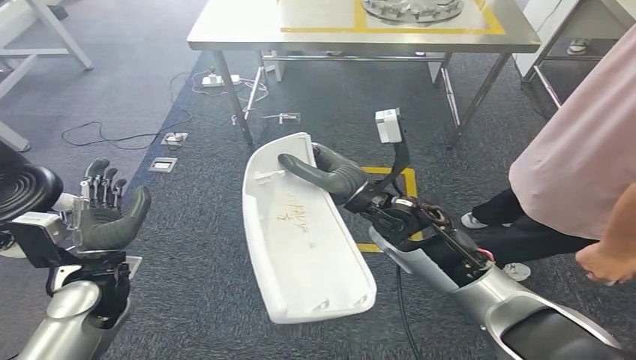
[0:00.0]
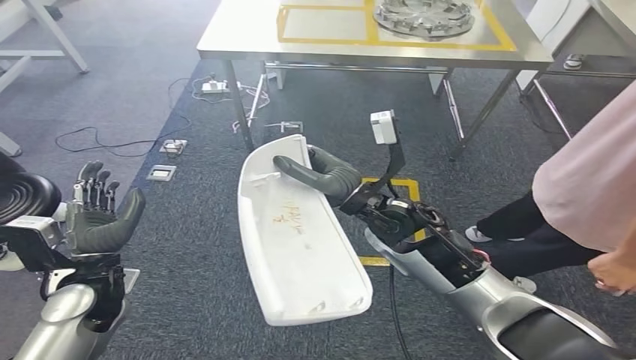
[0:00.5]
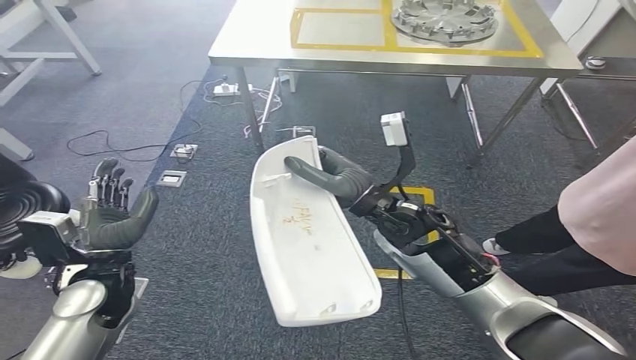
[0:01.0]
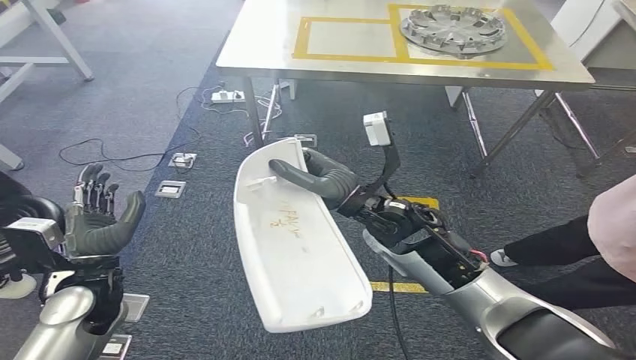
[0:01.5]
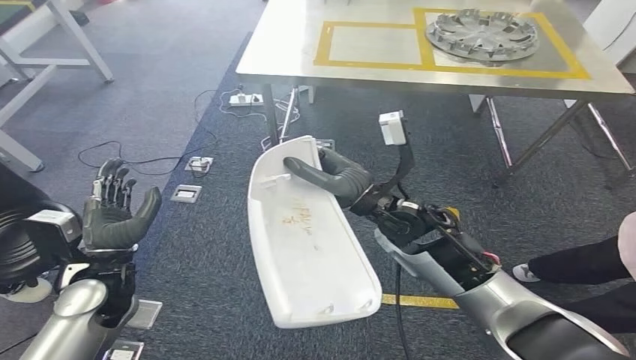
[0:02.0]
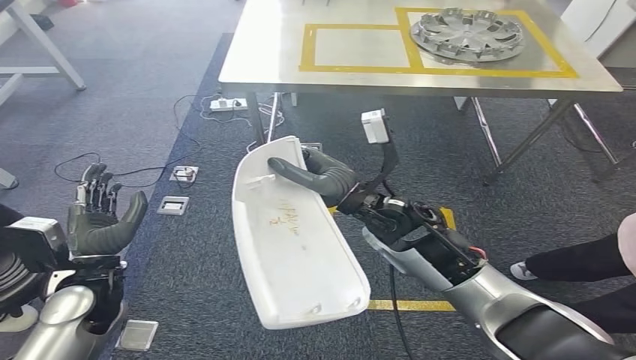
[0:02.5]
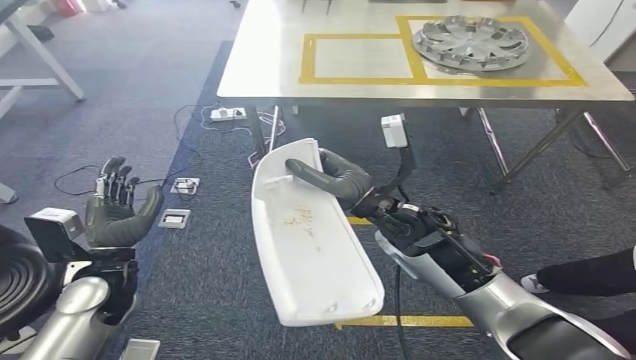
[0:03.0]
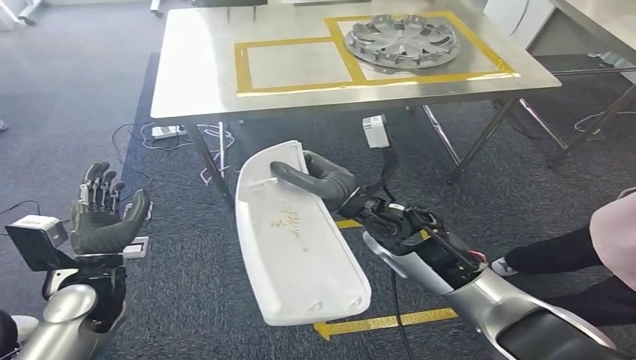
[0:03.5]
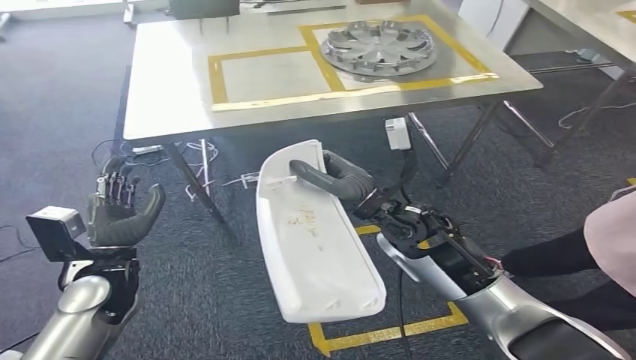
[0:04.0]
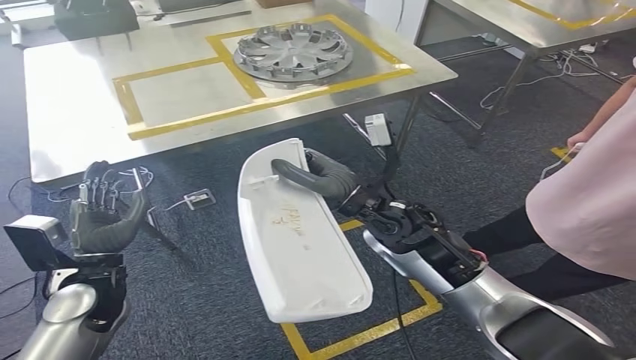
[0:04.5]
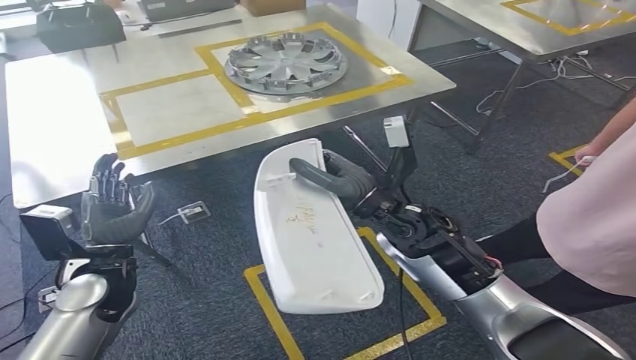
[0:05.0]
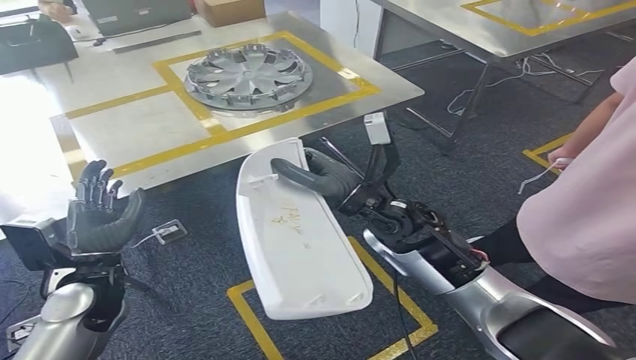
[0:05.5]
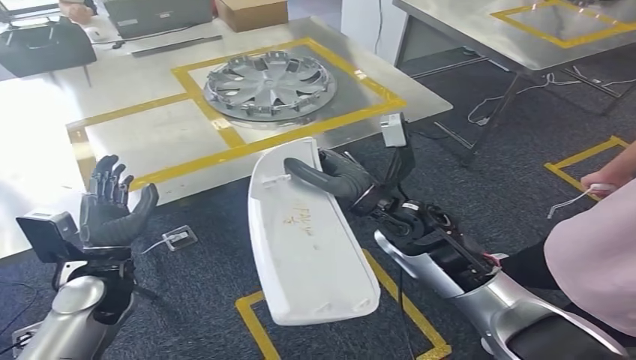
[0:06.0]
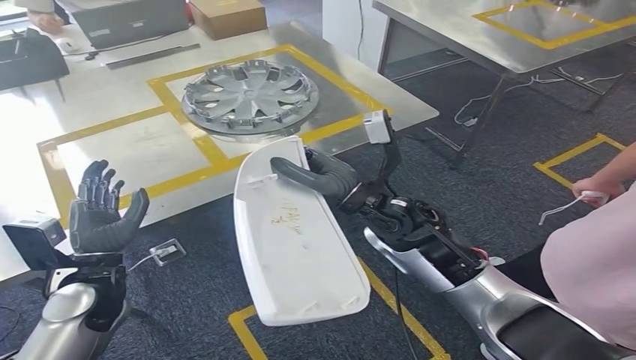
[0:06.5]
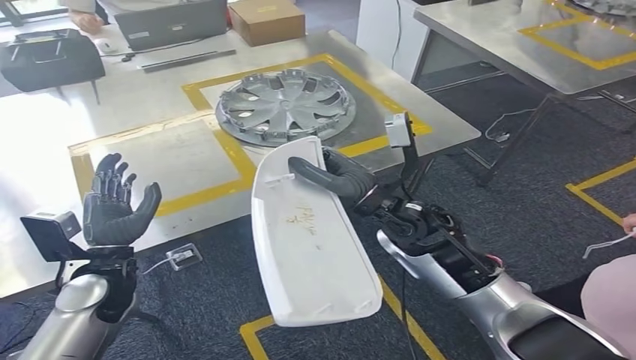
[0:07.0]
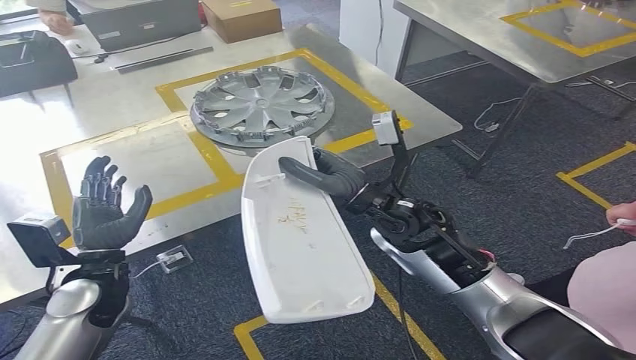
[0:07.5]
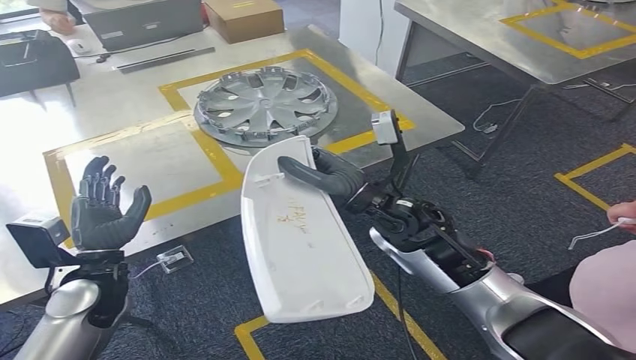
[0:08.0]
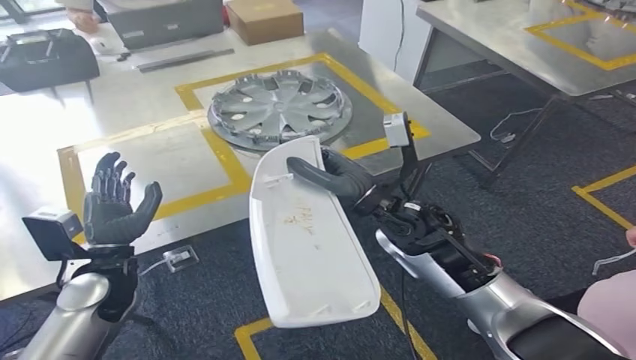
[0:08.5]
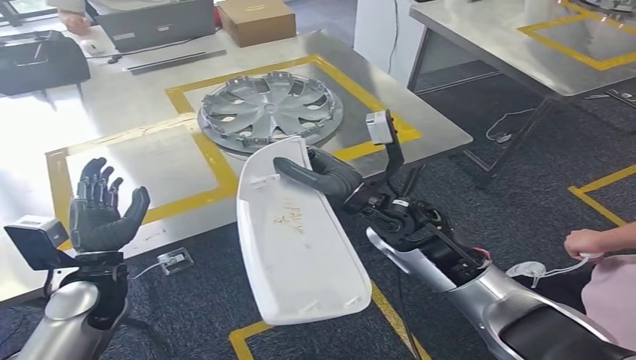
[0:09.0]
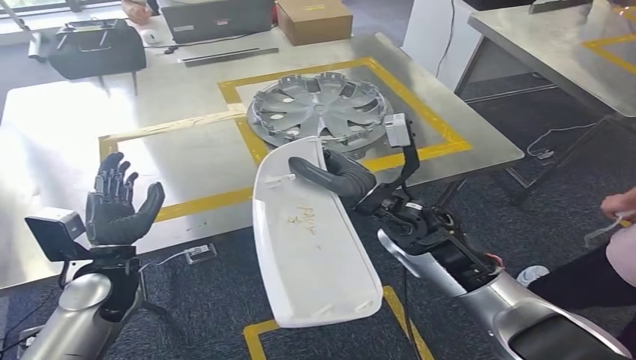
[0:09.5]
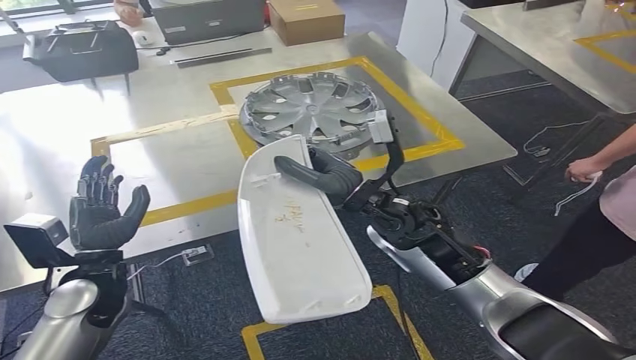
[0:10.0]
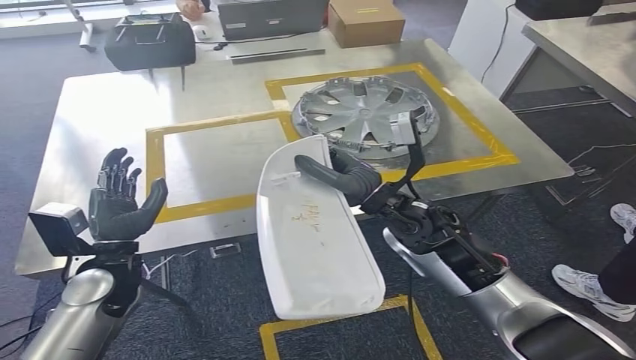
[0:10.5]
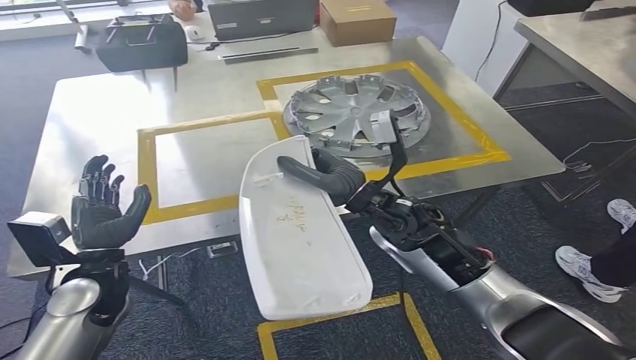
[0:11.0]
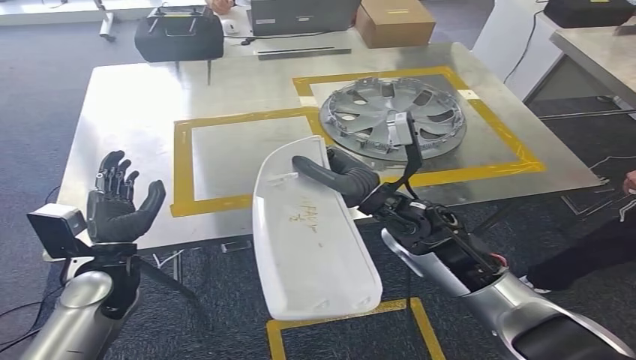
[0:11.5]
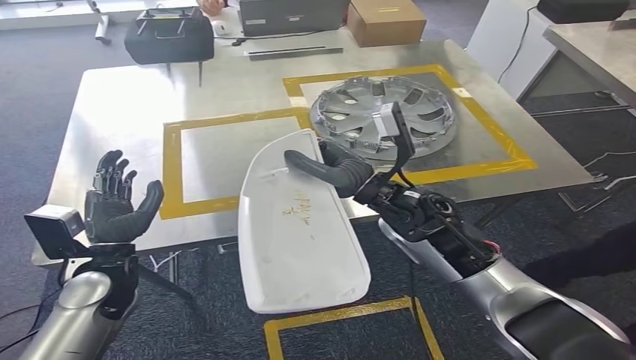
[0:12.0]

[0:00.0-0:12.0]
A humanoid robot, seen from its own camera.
Step, 0:00.0 to 0:08.5: Move the small component to the workbench.

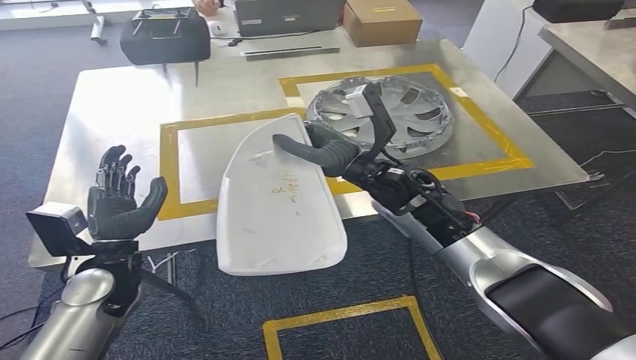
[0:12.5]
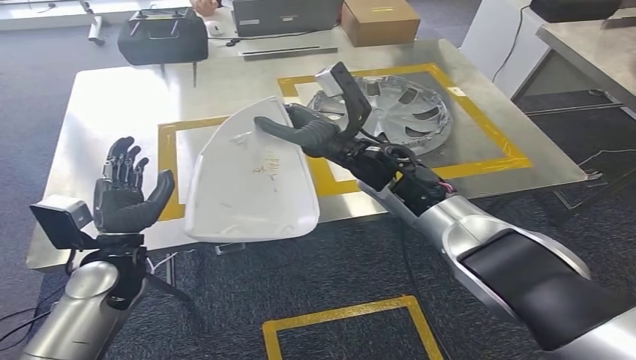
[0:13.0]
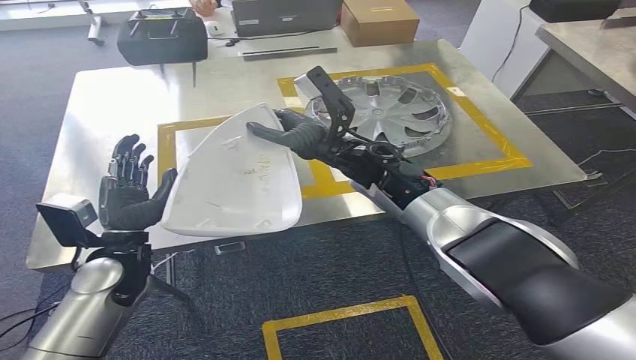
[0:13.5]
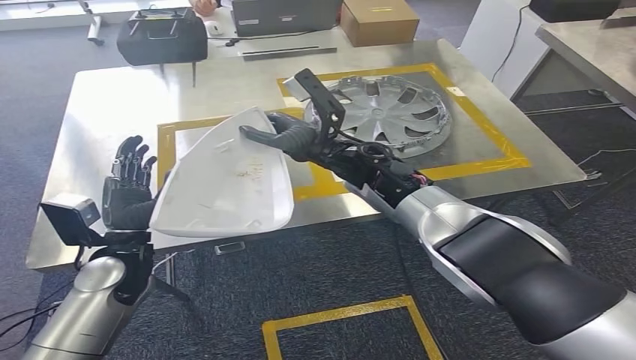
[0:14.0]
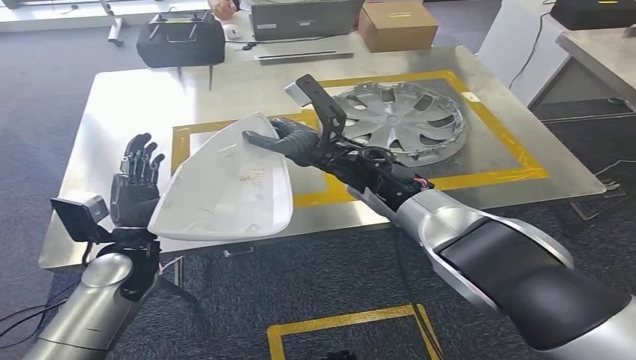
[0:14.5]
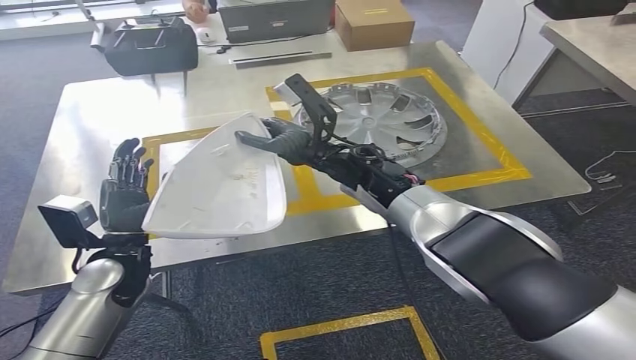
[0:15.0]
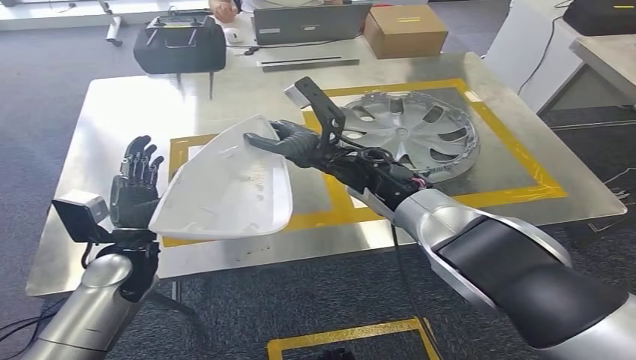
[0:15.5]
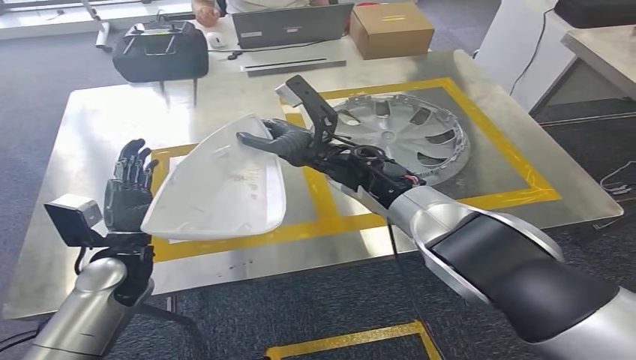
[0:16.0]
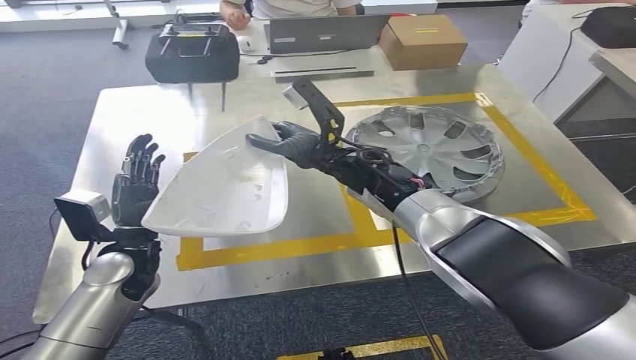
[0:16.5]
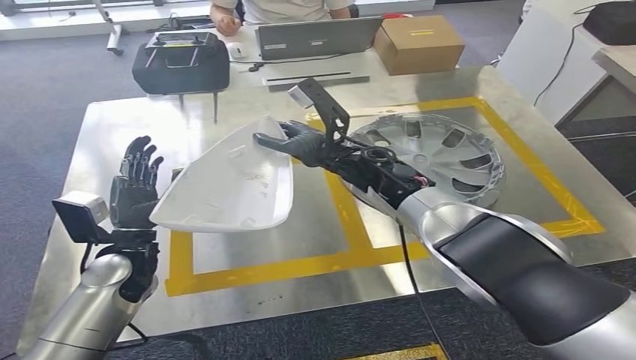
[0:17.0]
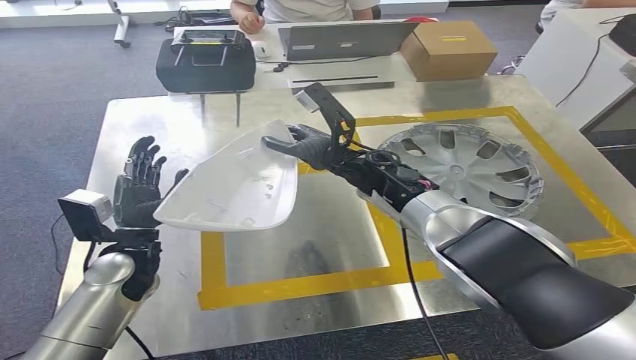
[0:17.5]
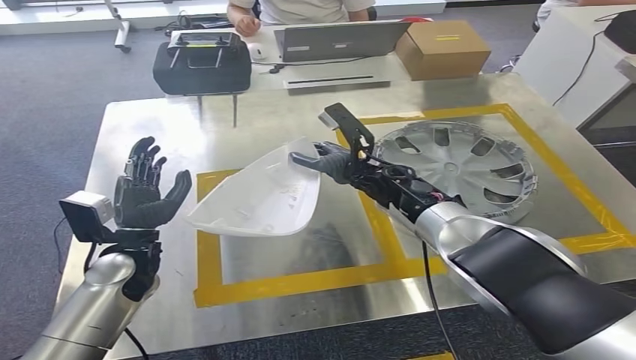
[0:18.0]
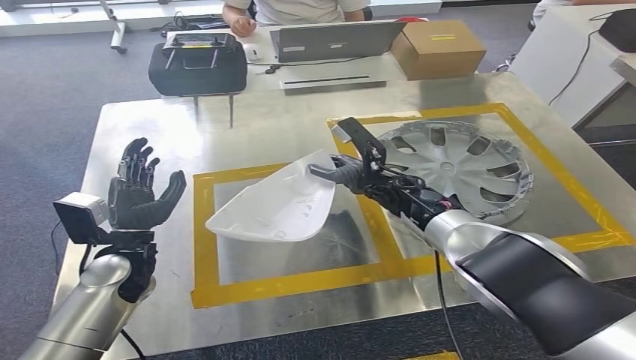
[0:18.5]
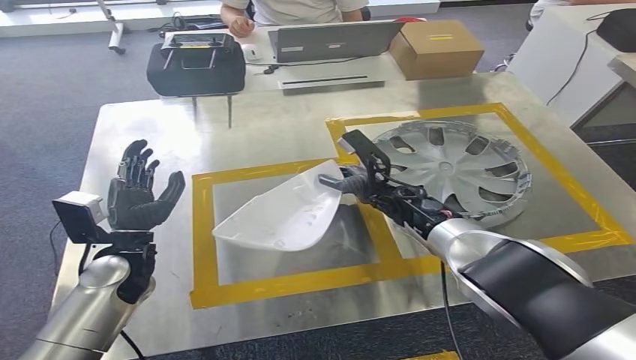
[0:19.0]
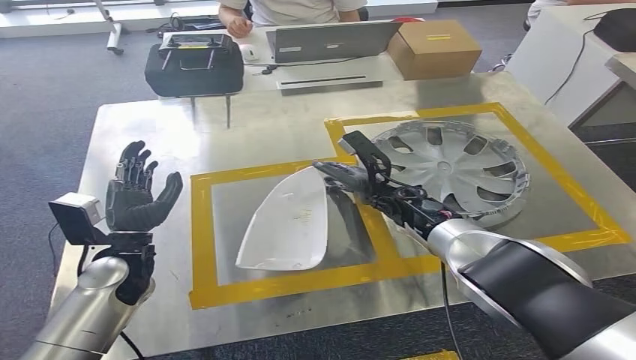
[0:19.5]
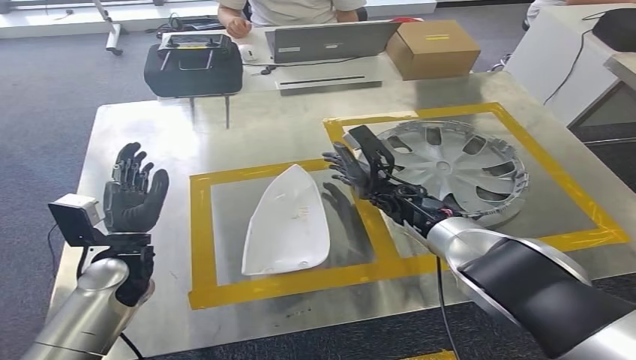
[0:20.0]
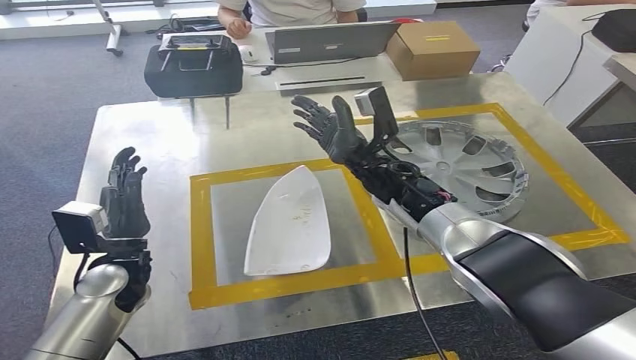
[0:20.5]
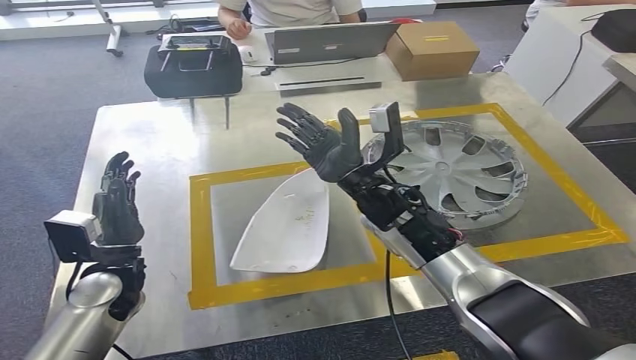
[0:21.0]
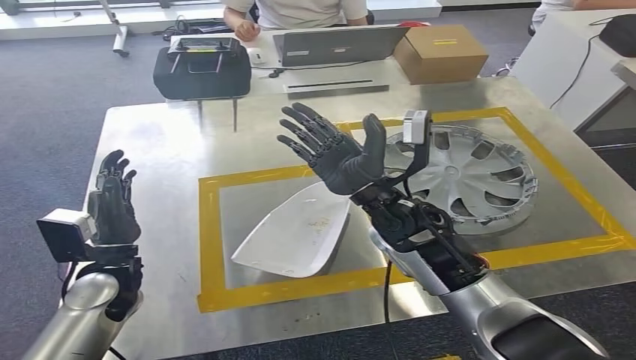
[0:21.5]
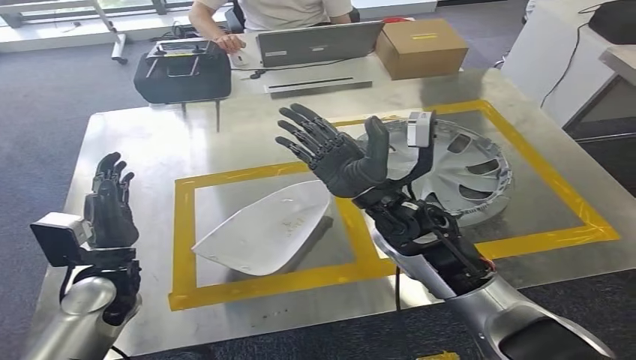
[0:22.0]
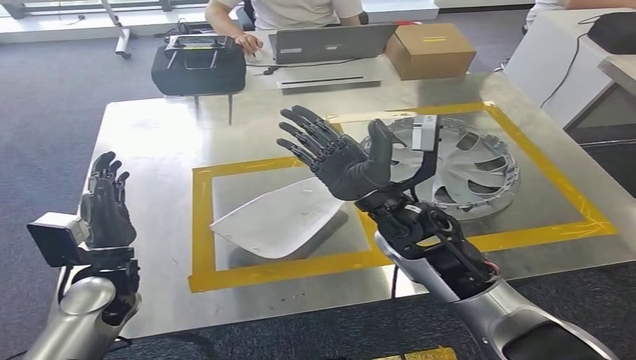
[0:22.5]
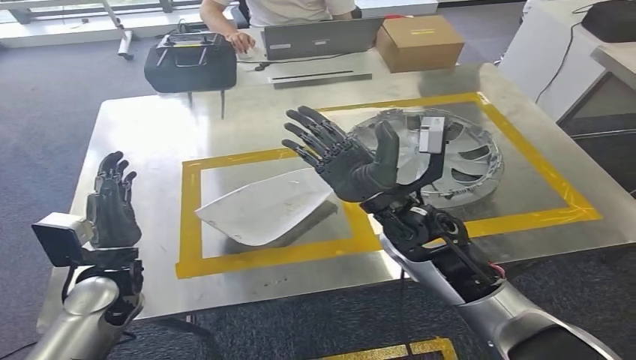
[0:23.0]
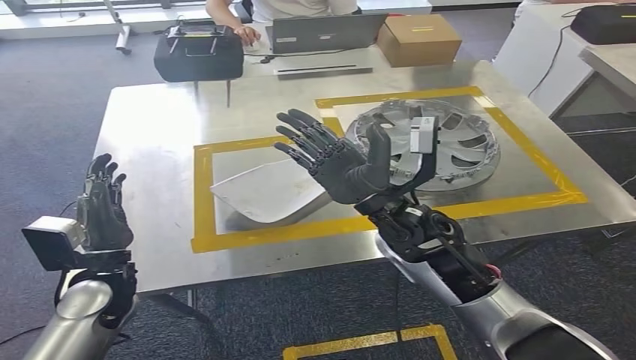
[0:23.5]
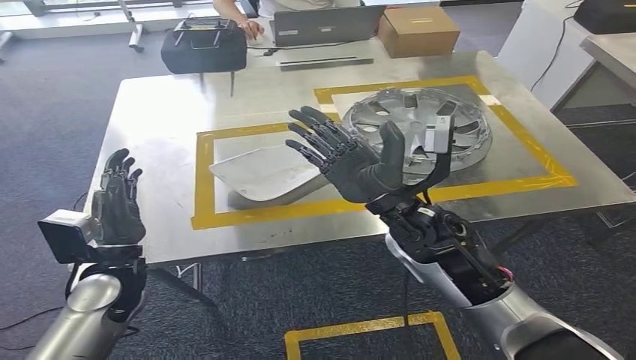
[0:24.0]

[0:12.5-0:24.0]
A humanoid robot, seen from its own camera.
Step, 0:12.5 to 0:20.0: Insert the small component into the corresponding slot on the workbench.
0:18.5 to 0:20.0: The hands move only a little.
